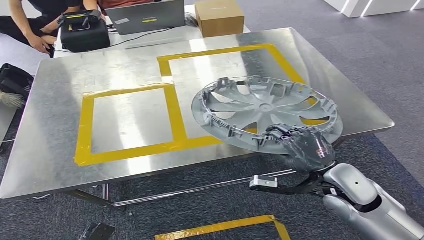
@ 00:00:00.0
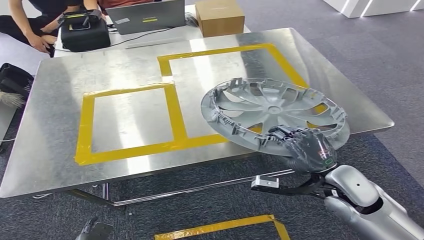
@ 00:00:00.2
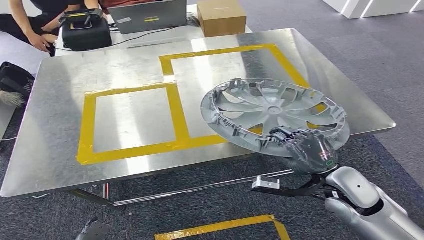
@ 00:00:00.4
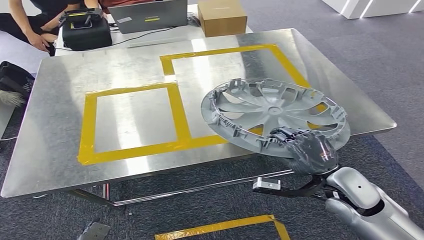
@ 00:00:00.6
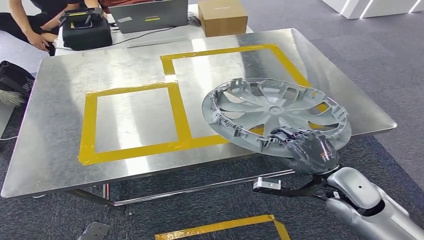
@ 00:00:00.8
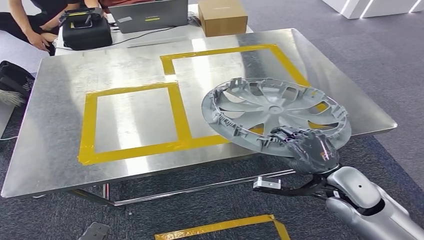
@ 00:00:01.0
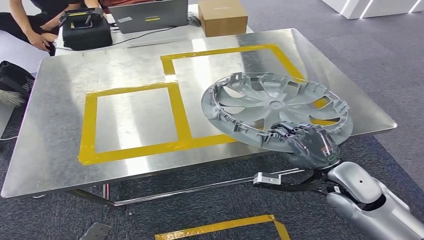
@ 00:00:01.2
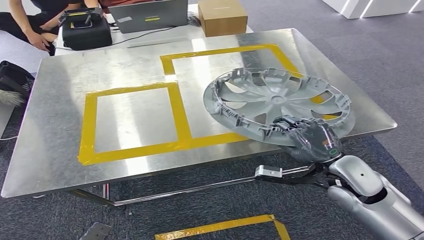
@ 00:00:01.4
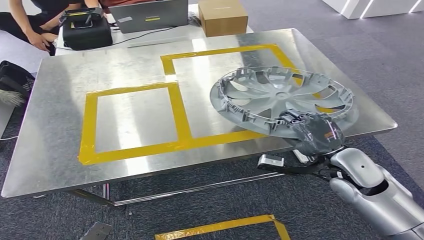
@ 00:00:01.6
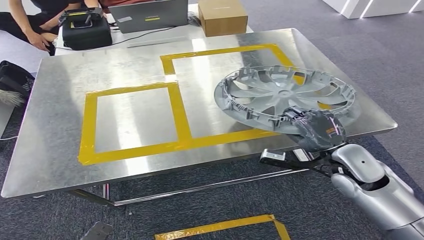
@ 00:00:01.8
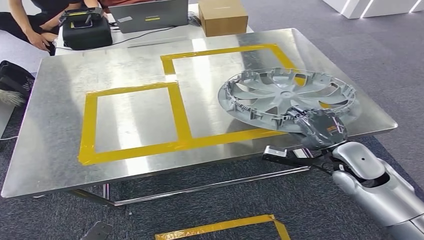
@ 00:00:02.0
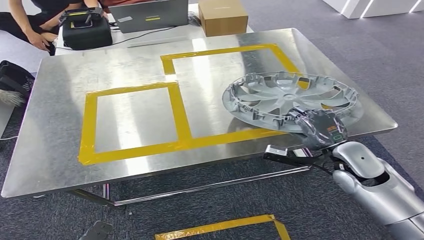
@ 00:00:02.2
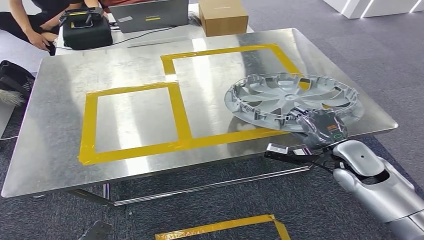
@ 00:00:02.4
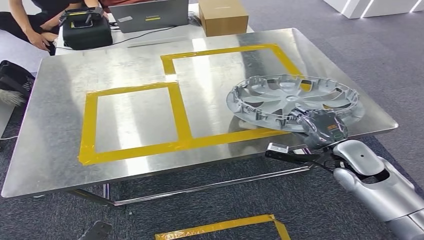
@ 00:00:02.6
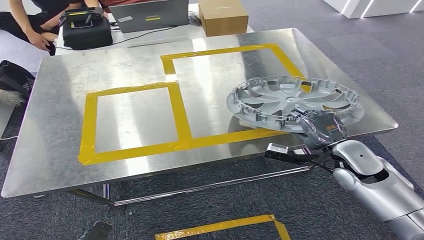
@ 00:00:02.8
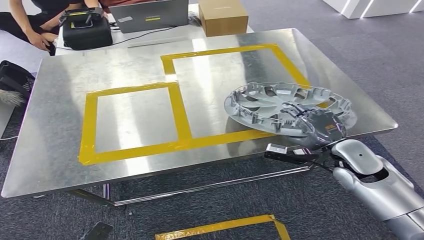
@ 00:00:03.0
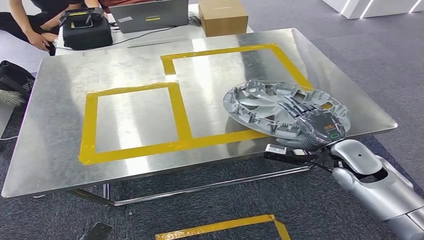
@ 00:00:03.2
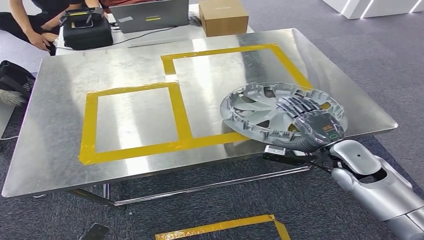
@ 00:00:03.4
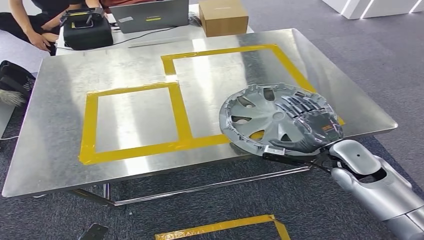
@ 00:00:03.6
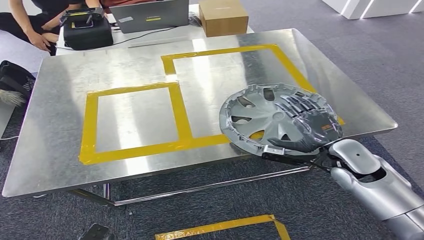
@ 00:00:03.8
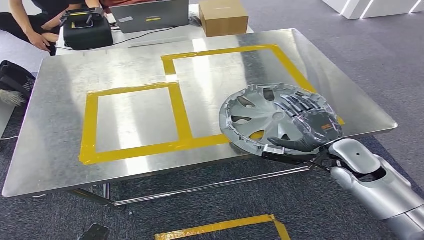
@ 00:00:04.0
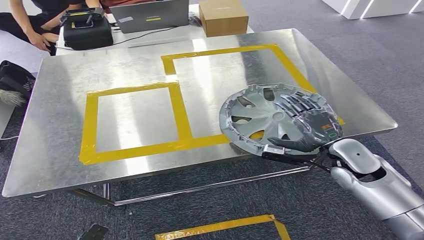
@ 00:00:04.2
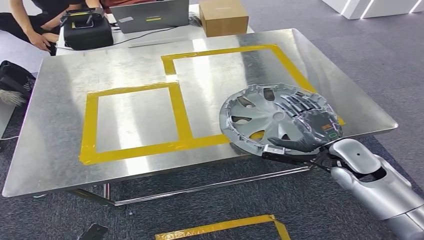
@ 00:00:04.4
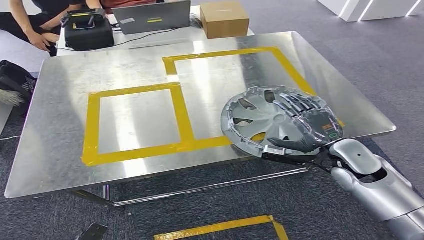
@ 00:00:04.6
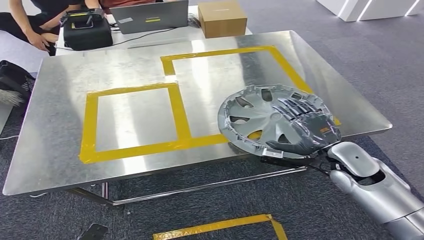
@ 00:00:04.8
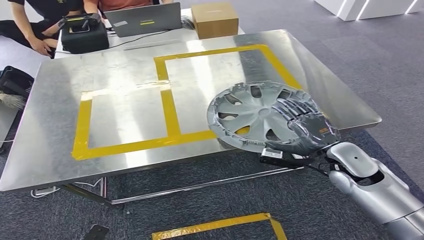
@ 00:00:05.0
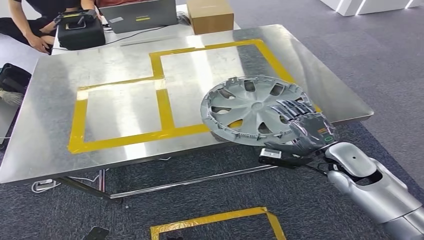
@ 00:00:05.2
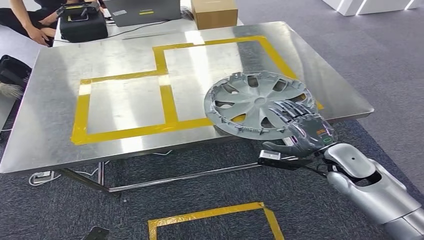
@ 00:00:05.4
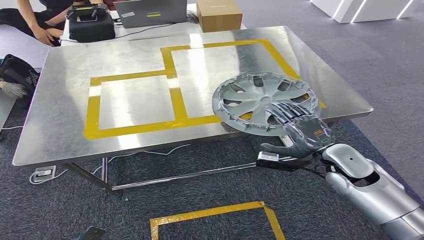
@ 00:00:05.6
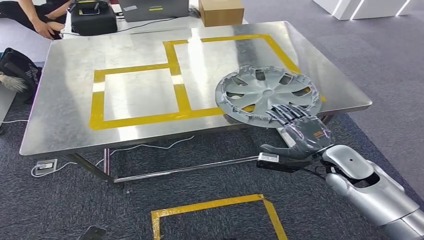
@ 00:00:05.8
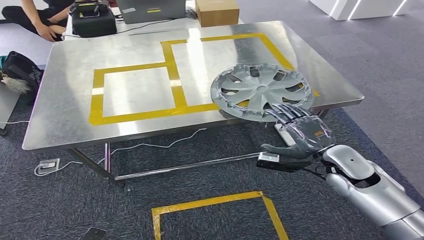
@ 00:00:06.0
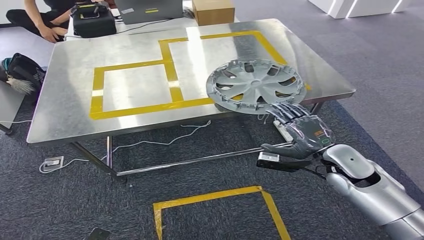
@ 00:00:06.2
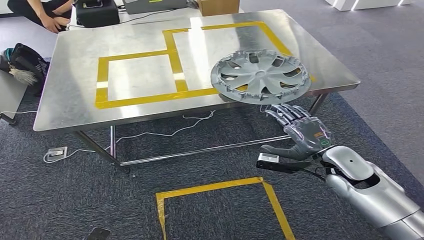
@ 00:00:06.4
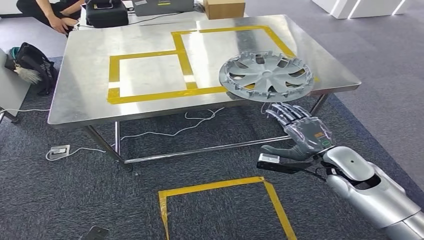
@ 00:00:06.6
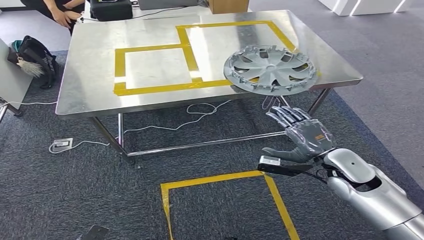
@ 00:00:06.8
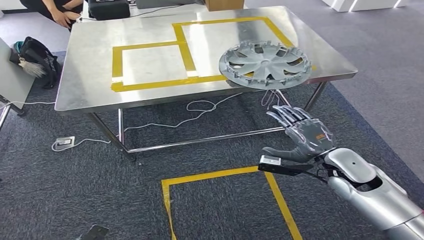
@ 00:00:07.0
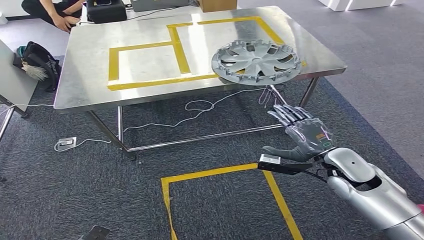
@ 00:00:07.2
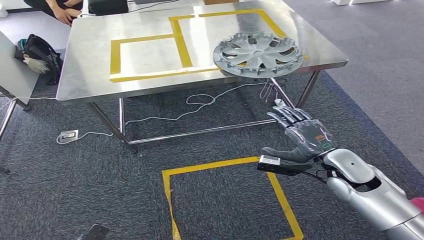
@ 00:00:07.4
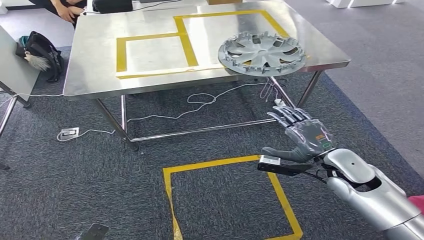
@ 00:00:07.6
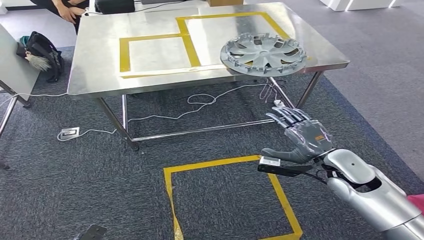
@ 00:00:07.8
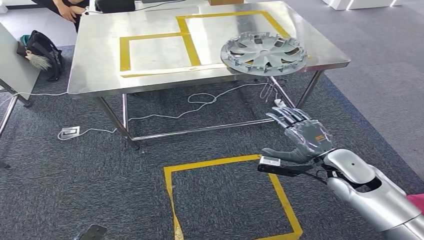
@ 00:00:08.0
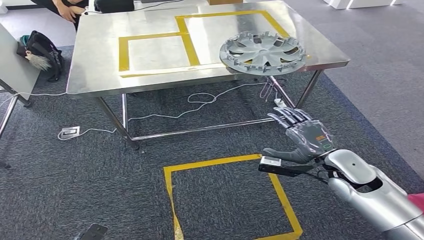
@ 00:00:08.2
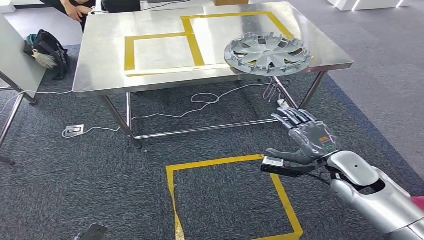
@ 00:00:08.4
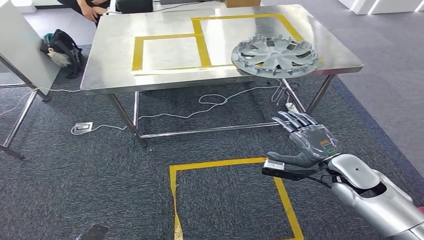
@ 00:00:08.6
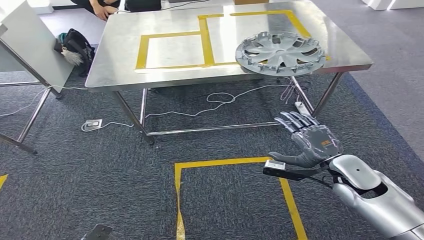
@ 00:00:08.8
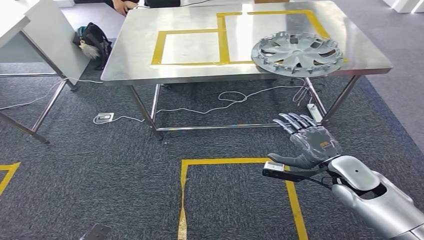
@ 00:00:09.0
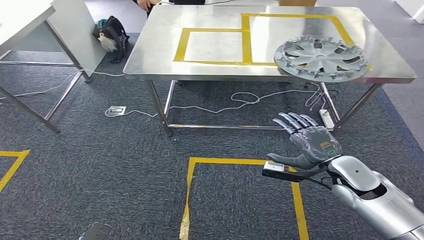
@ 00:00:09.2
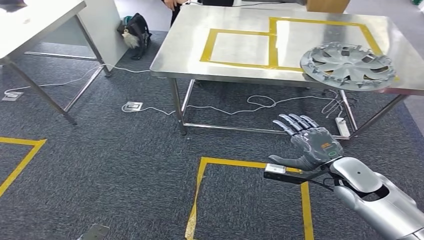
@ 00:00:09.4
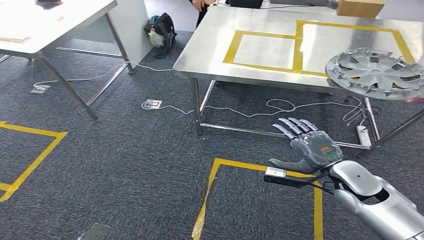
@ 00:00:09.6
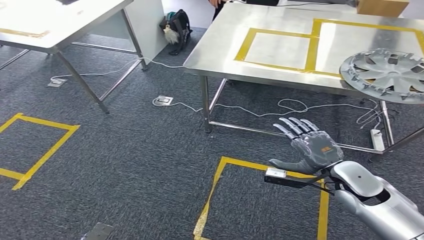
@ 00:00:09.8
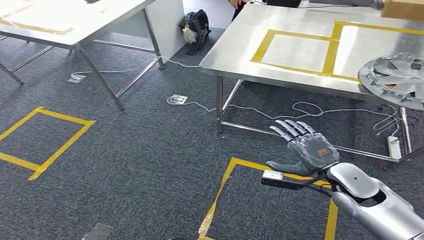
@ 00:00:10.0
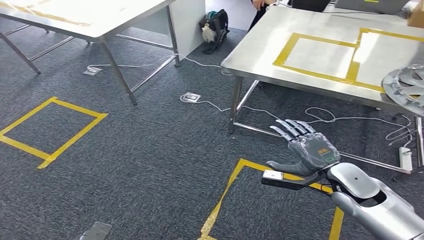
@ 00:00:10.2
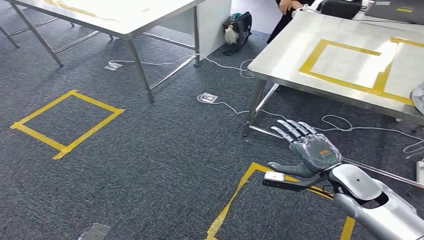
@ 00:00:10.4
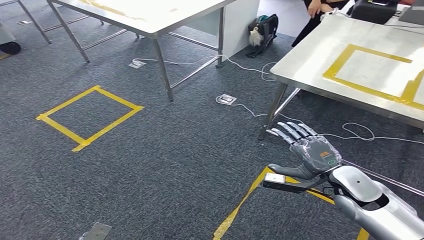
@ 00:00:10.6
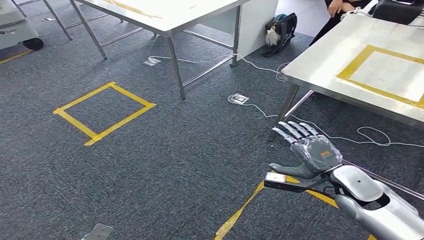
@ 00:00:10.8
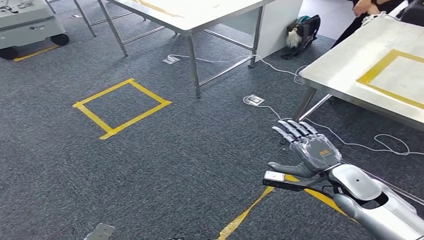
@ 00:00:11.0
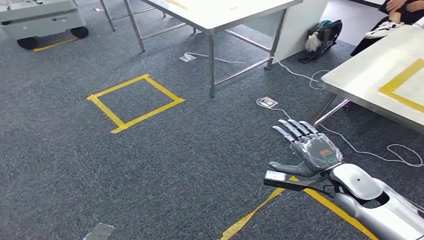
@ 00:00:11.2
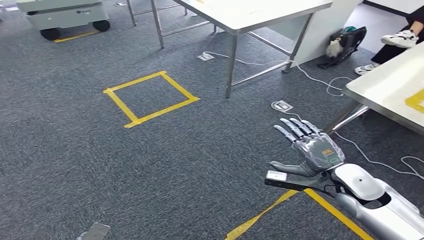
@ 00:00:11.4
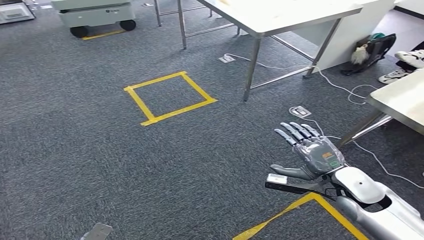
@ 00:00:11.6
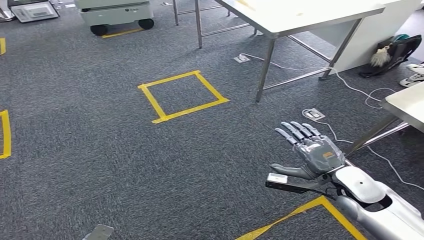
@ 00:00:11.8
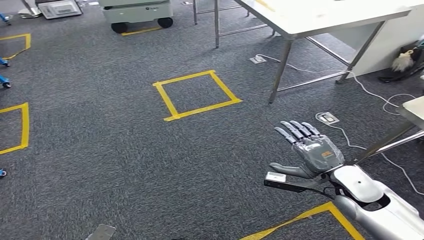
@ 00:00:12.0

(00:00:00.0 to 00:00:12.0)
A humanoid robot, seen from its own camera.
Step, 00:00:00.0 - 00:00:05.8: Insert the small component into the corresponding slot on the workbench.
00:00:01.6 - 00:00:03.0: The hands move only a little.
00:00:03.0 - 00:00:04.4: Both hands stay put.

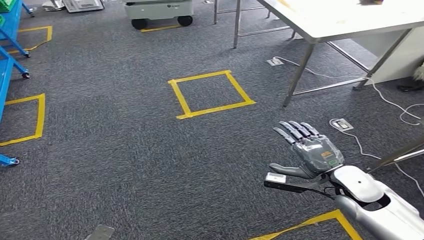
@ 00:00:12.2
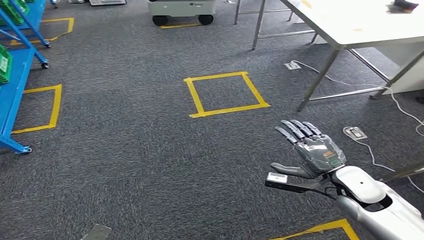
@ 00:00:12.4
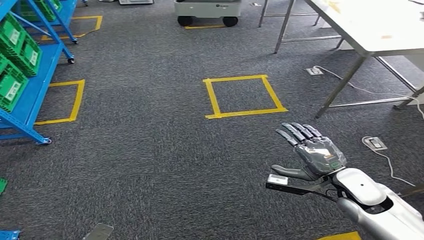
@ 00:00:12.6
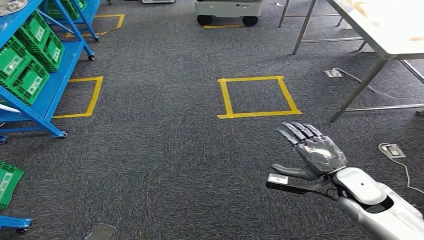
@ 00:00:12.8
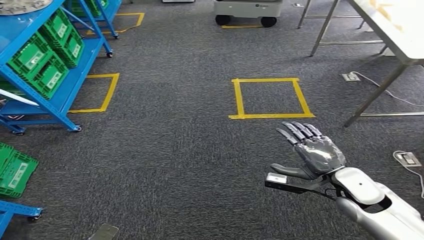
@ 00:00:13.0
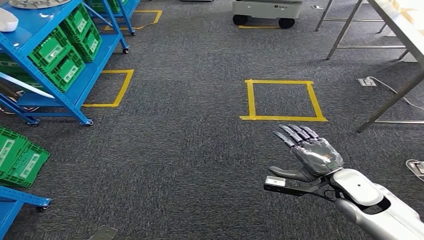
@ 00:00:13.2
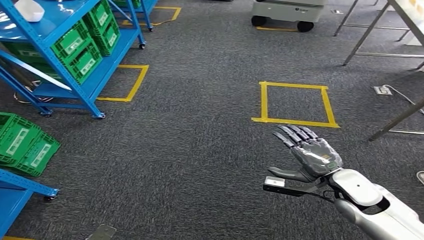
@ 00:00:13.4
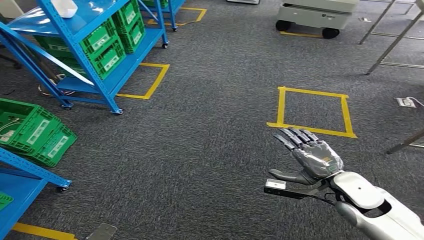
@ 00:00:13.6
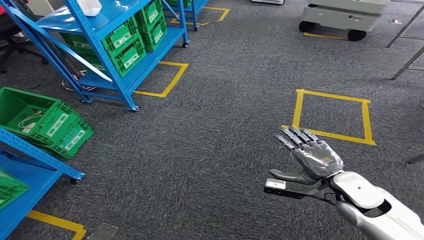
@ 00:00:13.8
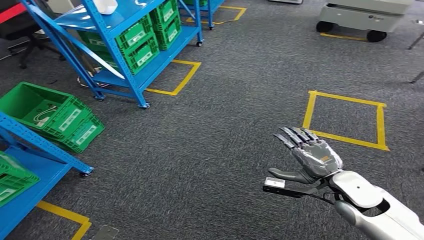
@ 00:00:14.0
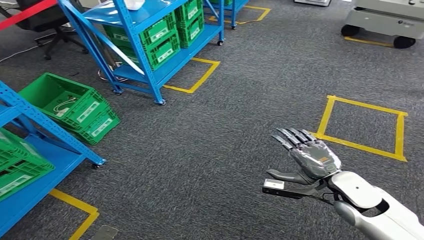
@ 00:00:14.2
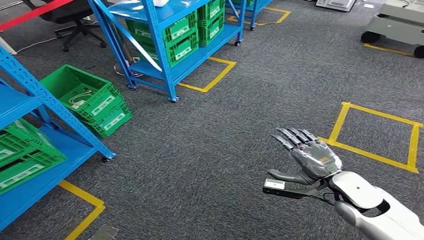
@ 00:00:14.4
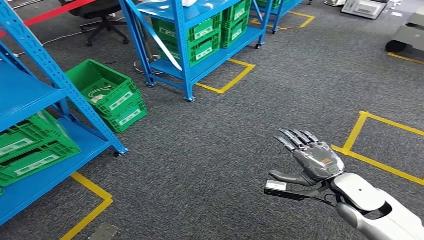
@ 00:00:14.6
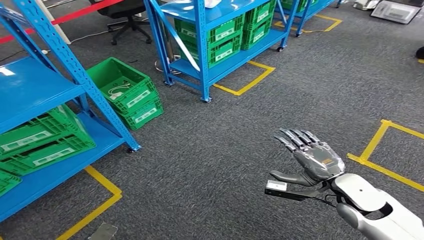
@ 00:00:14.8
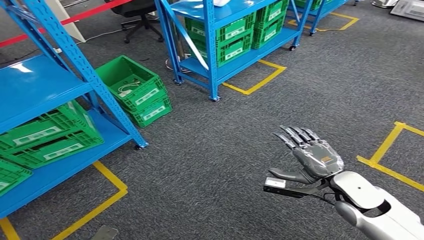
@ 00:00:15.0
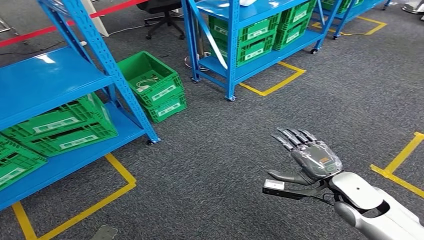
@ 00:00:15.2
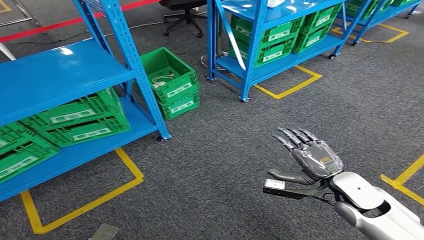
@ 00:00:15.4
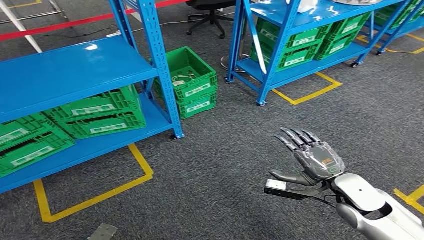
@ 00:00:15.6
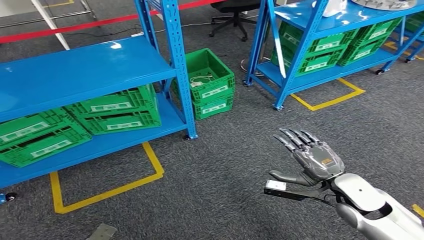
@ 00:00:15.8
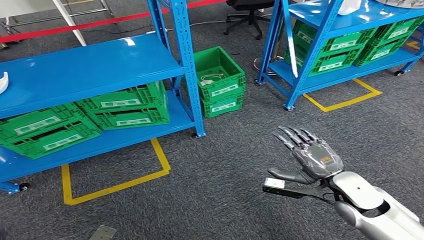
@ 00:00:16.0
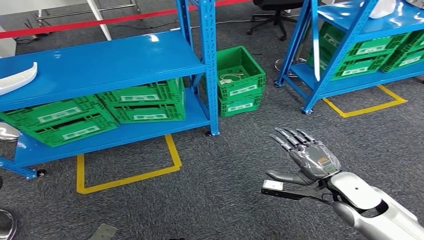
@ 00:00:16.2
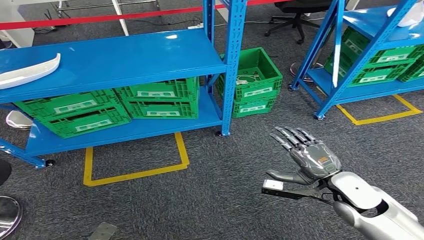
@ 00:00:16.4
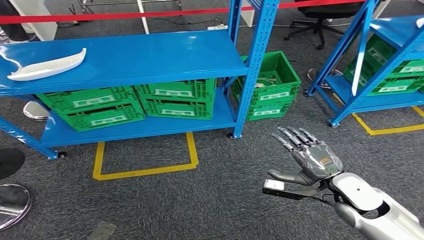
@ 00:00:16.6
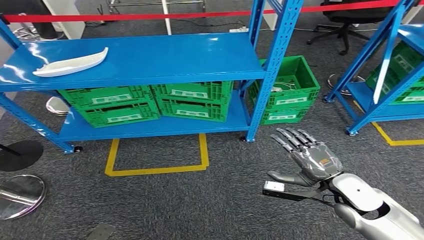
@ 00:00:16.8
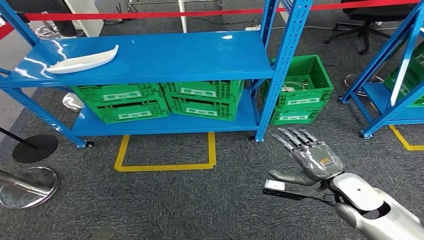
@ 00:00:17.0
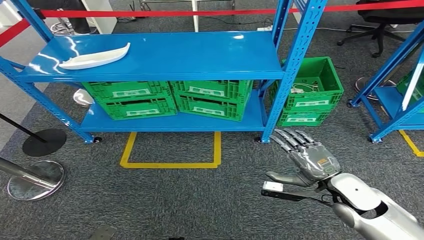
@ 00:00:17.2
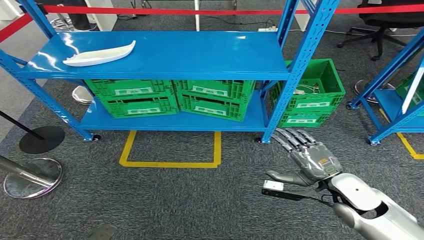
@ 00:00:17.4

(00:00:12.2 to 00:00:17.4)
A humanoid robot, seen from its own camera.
Step, 00:00:12.2 - 00:00:17.4: Return to the initial position at the workbench.
